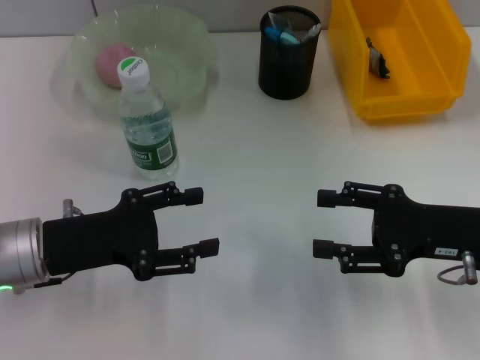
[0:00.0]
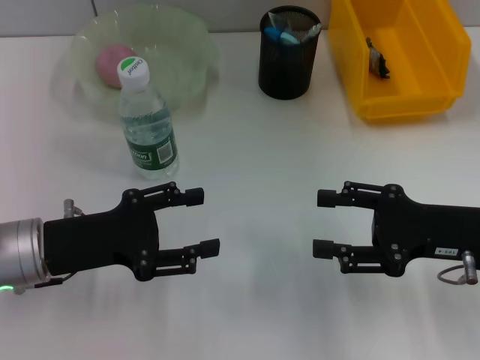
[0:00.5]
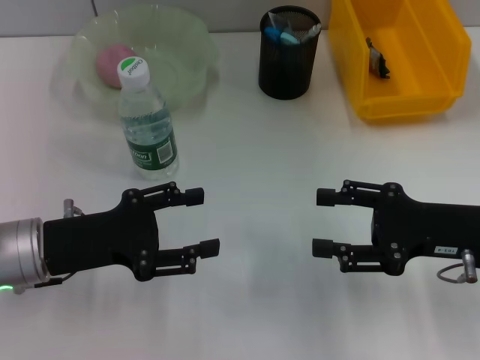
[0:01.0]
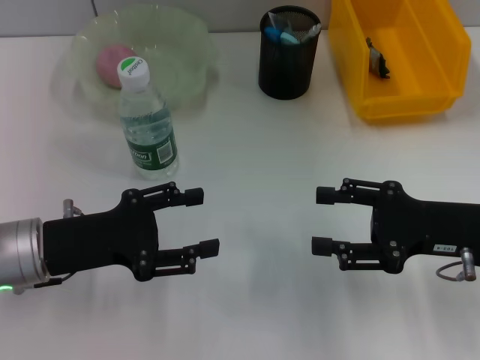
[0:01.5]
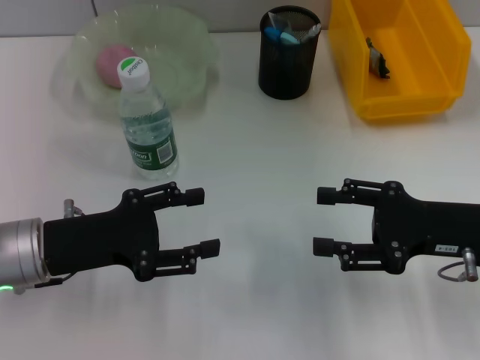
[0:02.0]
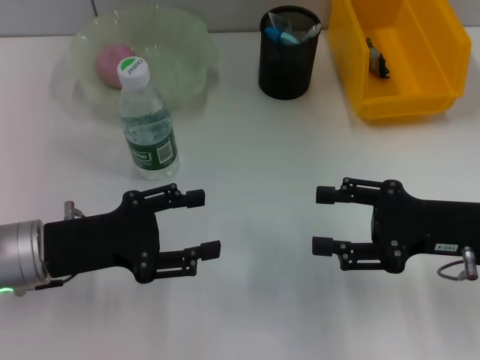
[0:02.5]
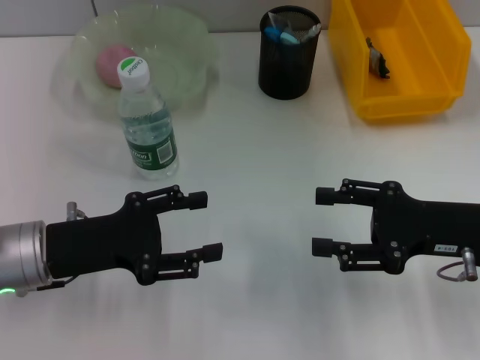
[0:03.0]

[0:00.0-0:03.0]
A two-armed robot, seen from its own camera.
0:00.0 to 0:03.0: Neither gripper changes place.
